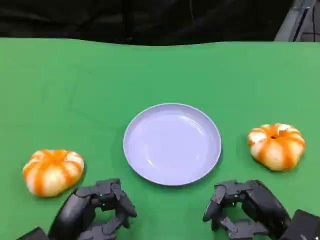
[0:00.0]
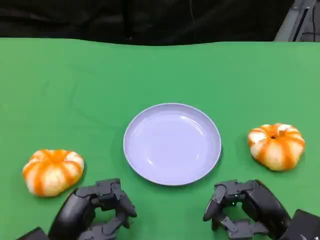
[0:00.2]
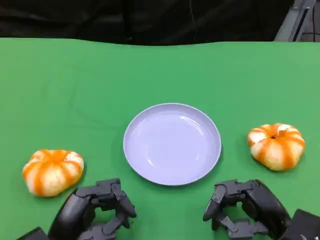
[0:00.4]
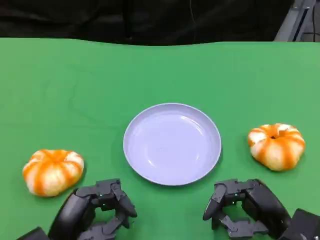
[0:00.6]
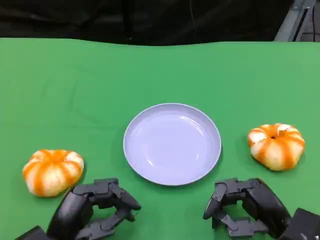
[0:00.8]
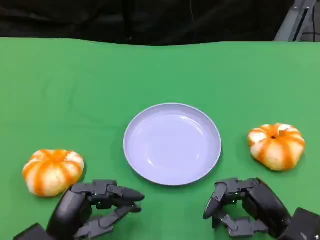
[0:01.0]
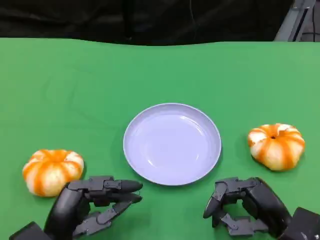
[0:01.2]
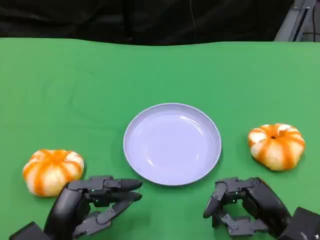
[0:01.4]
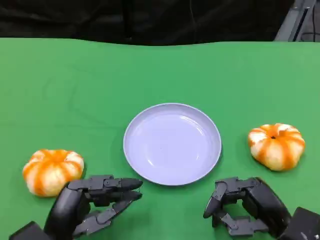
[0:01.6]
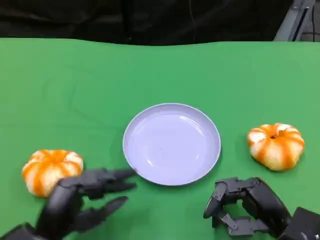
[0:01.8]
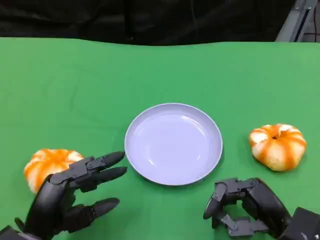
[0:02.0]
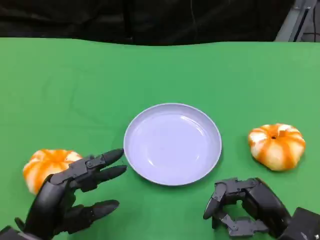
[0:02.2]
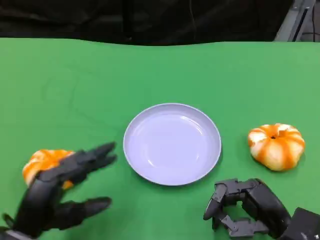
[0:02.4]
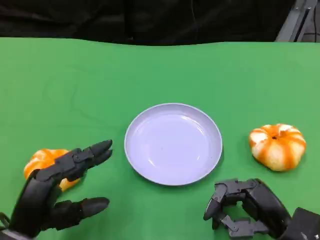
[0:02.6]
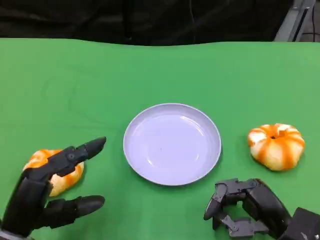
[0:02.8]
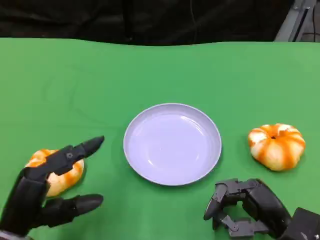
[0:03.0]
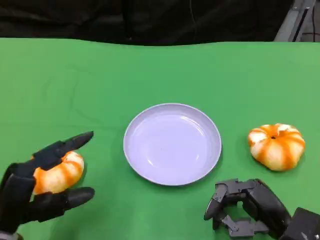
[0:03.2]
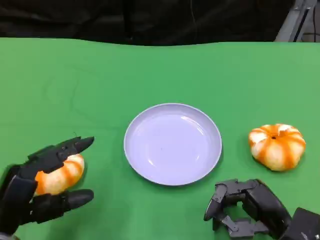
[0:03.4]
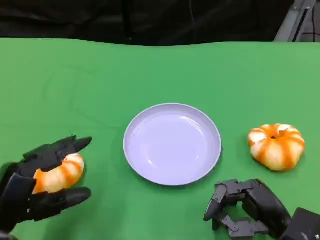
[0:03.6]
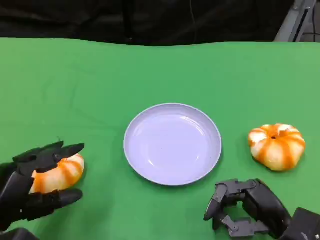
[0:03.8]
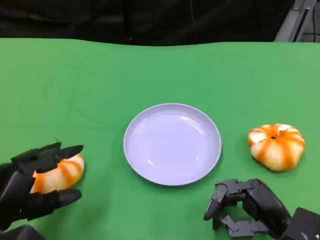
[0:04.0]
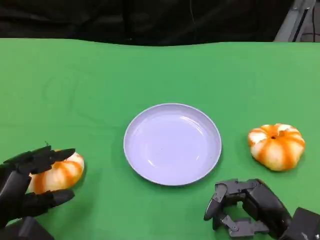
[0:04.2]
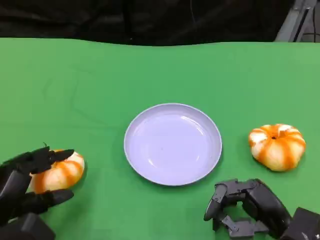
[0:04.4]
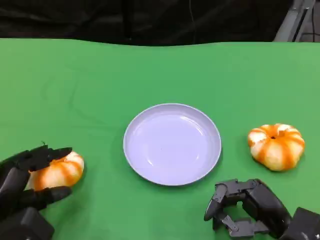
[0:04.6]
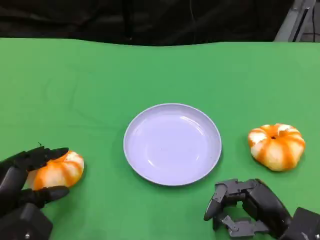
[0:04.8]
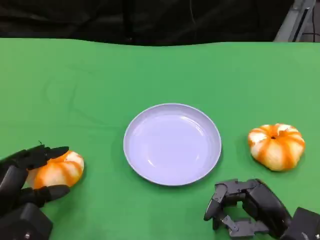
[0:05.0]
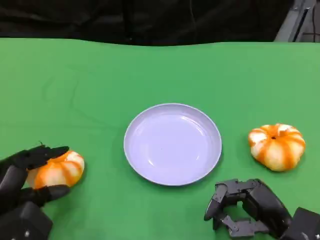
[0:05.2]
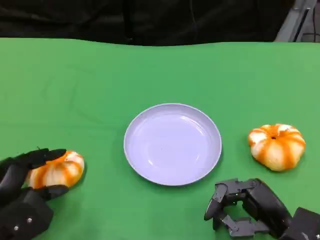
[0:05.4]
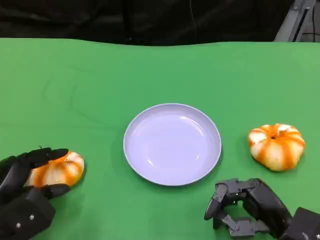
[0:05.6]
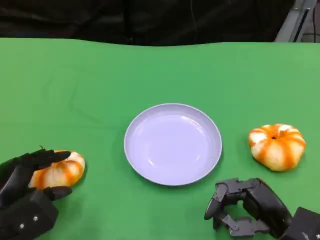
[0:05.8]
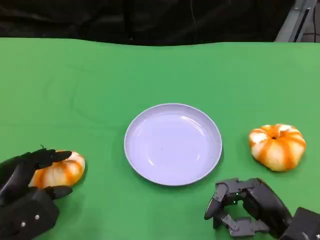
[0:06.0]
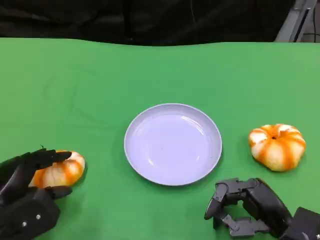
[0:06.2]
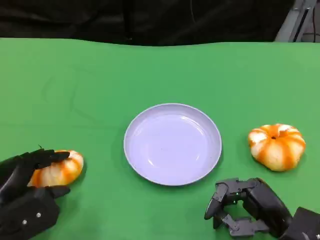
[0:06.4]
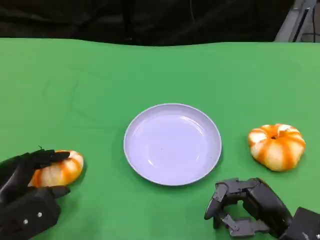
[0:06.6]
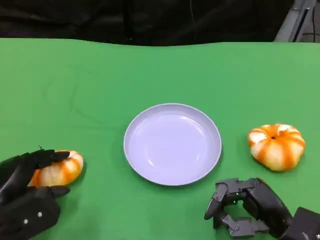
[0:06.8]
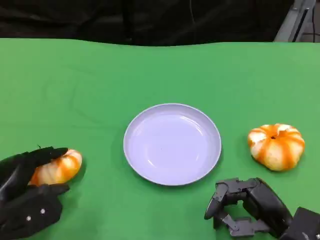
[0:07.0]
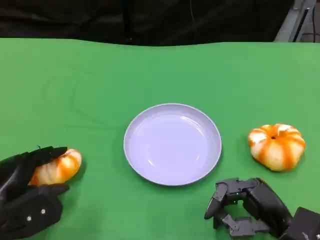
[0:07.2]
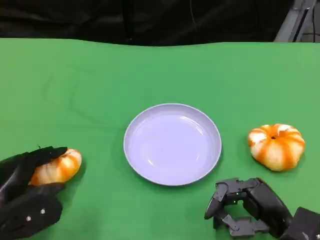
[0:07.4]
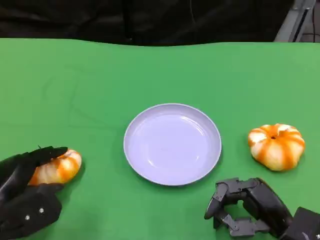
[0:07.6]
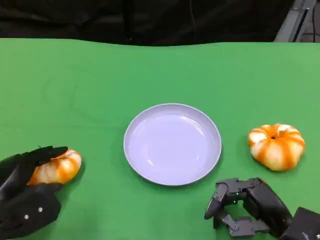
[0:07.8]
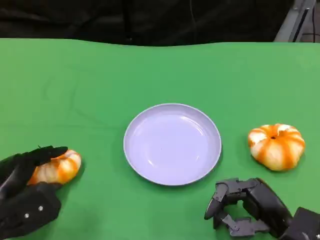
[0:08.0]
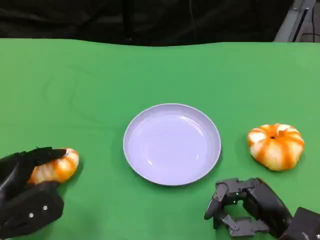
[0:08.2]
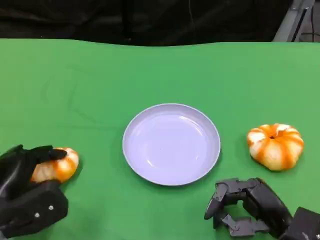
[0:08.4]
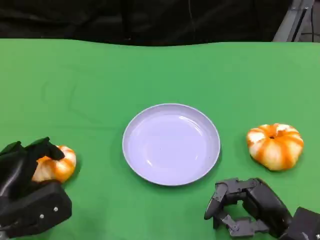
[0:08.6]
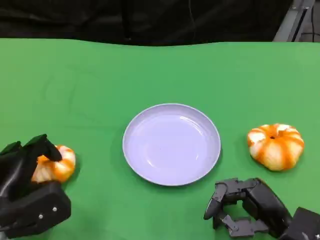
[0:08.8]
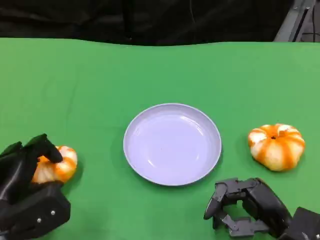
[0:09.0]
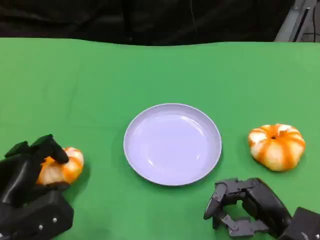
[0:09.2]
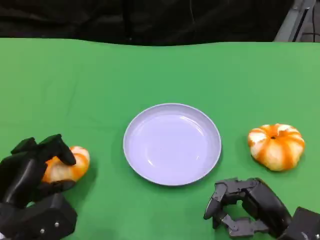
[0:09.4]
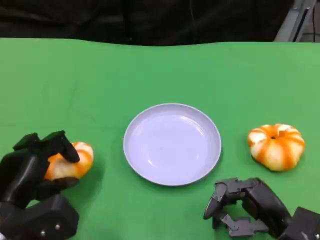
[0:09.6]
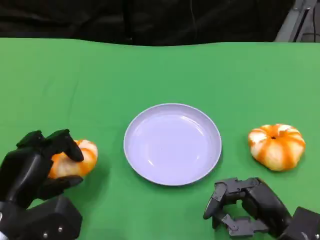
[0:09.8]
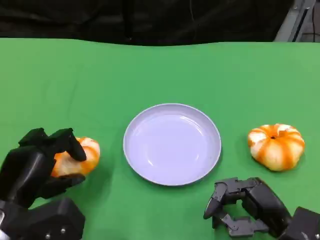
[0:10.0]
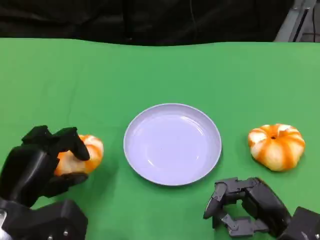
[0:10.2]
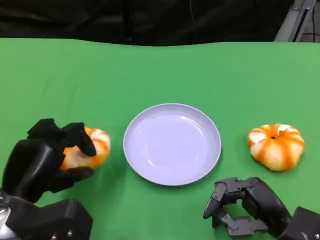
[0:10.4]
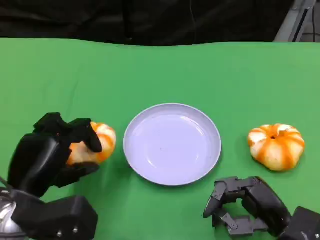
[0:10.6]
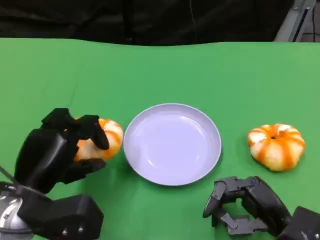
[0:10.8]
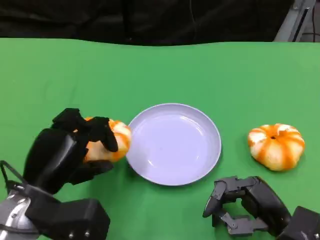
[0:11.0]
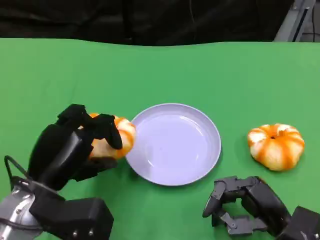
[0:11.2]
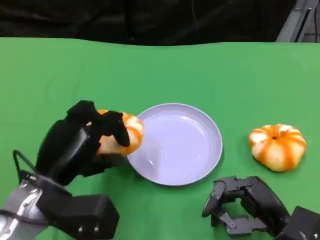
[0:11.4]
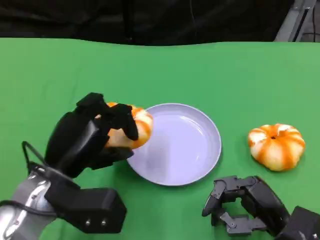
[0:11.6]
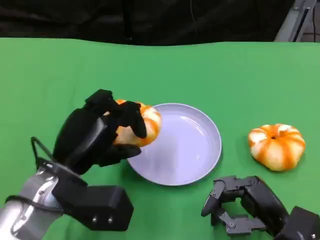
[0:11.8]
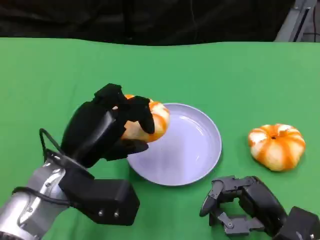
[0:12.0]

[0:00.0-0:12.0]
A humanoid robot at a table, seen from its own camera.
Task of the whole recording: Grasp the bread from the table and place it into the plate.
0:00.0 to 0:01.6: The hands make only small movements.
0:01.6 to 0:03.0: The left hand shifts by about 5 cm.
0:04.4 to 0:06.0: The hands stay close to where they were, moving slightly.
0:06.0 to 0:07.6: Neither hand changes place.
0:07.6 to 0:09.0: There are only small adjustments of the hands.
0:09.0 to 0:10.4: The left hand changes place by some 5 cm.
0:10.4 to 0:12.0: The left hand moves to the right, about 5 cm.

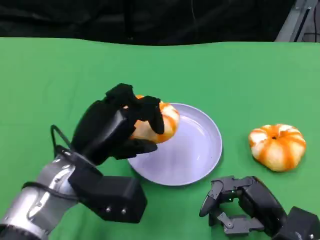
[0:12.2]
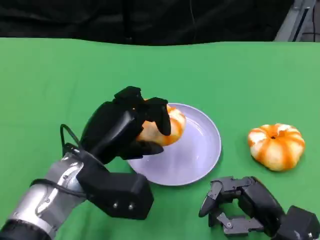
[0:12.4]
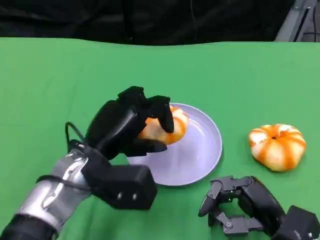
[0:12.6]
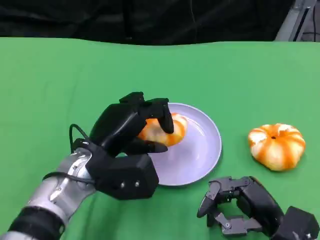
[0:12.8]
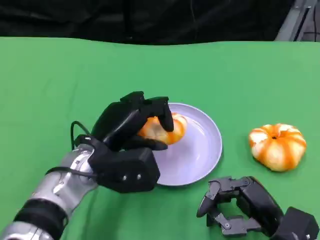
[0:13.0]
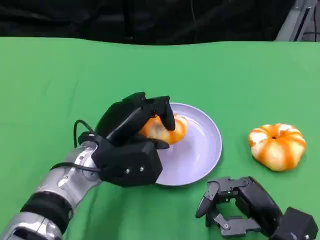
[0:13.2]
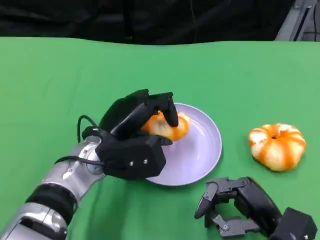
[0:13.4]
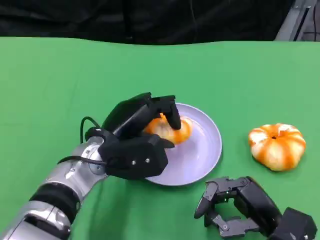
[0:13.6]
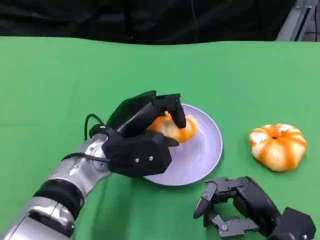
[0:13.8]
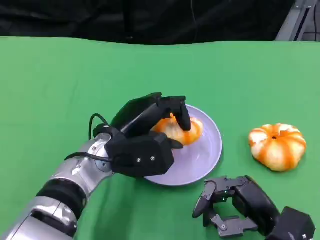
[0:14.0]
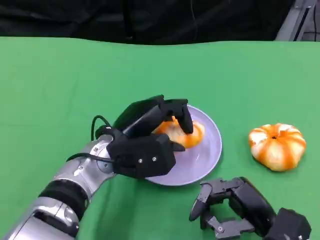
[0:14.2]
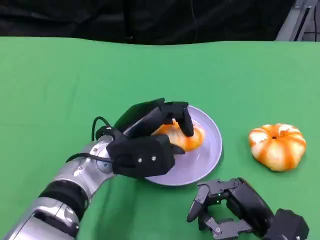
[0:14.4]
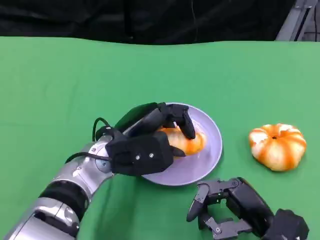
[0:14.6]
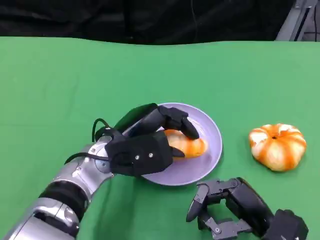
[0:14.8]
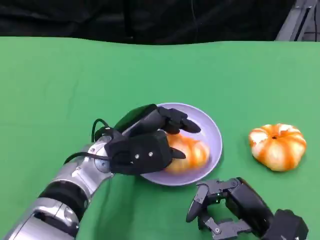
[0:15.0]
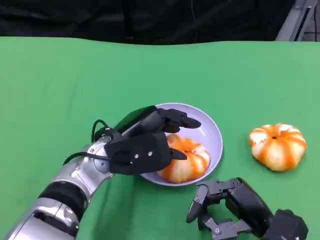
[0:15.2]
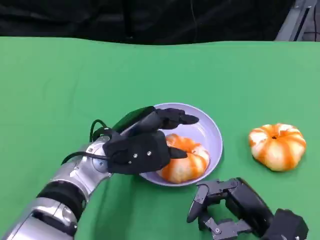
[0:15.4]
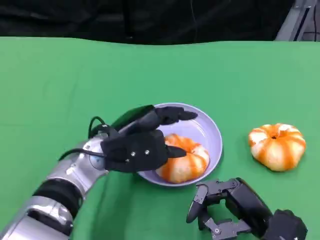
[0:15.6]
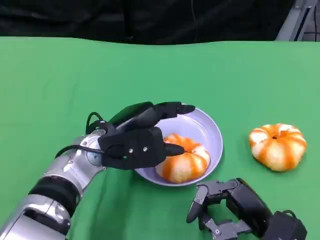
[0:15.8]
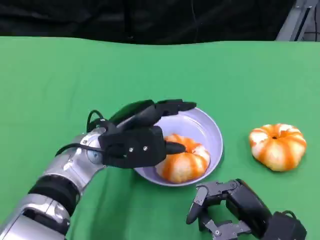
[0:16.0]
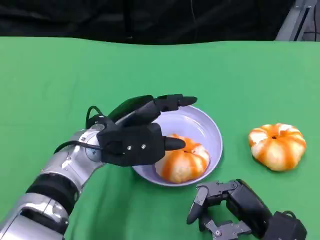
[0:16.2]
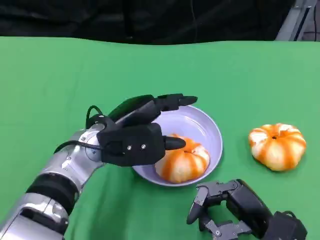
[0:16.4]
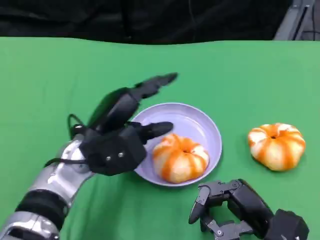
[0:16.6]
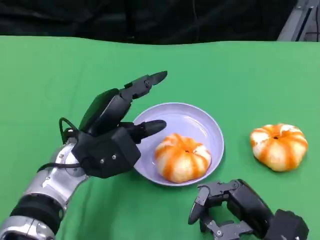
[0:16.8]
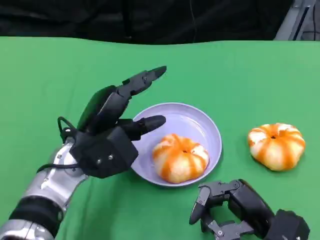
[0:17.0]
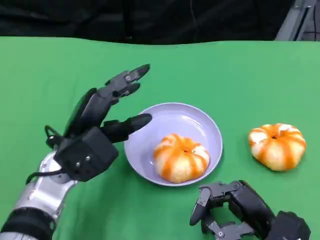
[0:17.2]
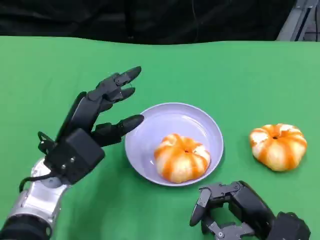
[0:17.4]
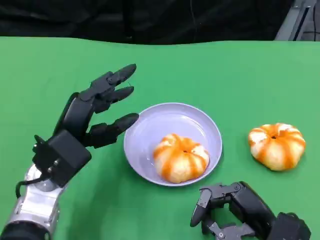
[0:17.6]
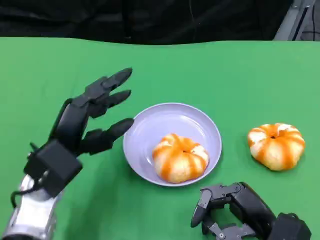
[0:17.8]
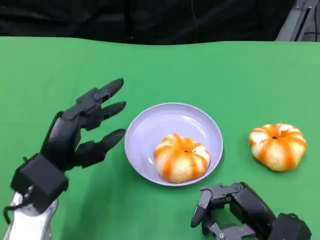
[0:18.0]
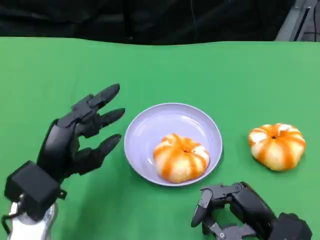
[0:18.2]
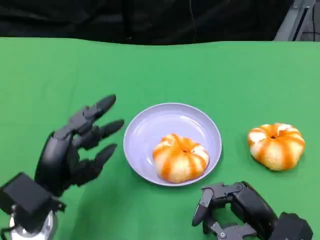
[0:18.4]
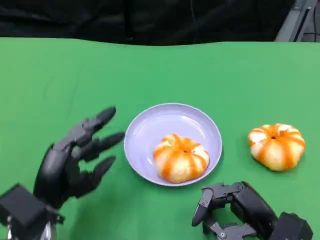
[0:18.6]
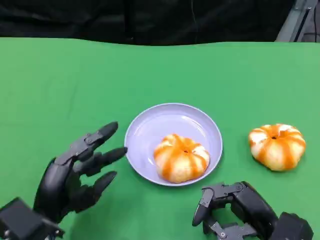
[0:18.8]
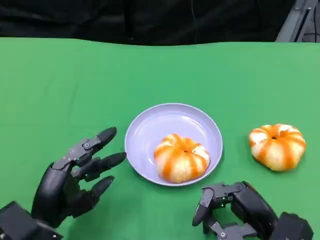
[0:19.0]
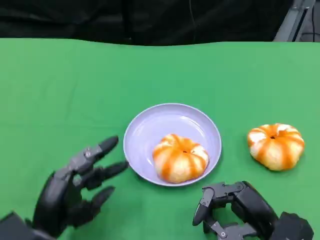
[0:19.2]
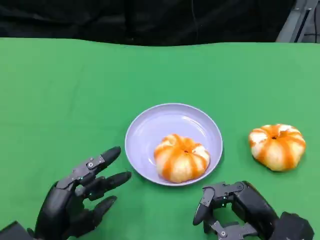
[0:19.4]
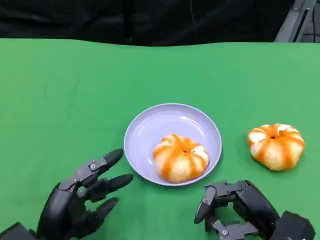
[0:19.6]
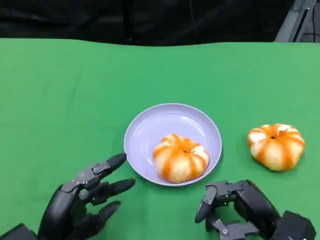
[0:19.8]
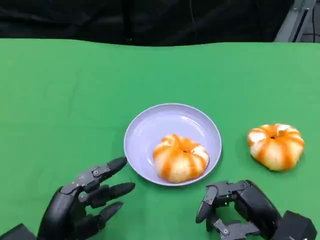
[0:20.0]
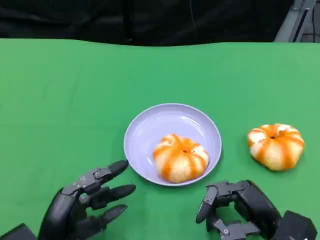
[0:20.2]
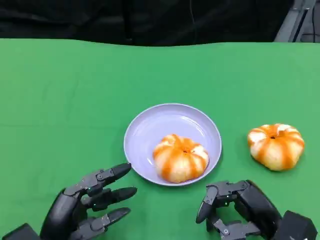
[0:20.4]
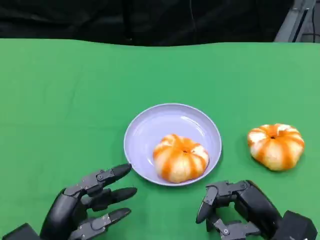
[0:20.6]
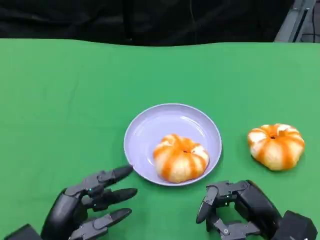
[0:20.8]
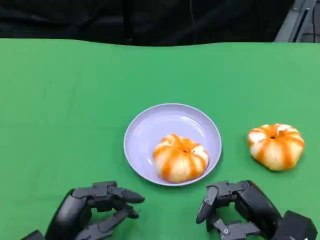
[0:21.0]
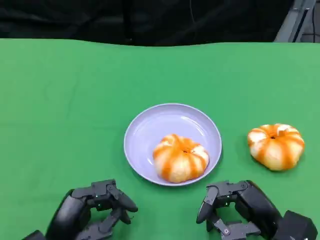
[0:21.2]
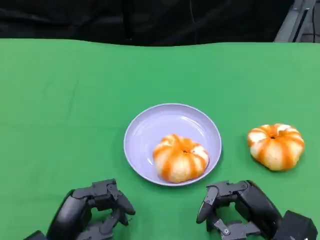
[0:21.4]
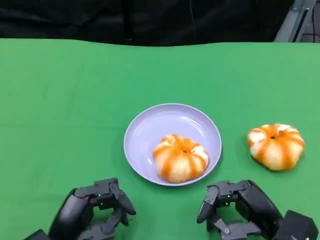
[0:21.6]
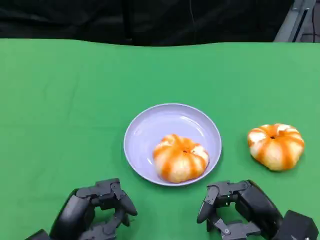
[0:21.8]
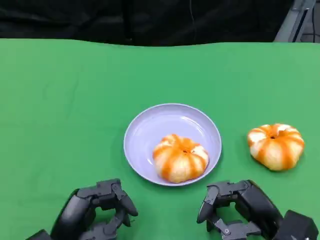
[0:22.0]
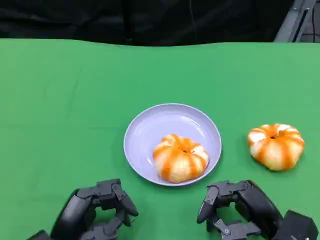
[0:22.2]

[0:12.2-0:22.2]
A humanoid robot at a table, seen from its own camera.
Task of the whole recording: Grasp the bread from the table and place it into the plate.
0:12.2 to 0:13.6: The left hand ends up roughly 5 cm from where it was.
0:13.6 to 0:16.4: The hands move only a little.
0:16.4 to 0:18.0: The left hand moves to the left and backward, roughly 10 cm.
0:18.0 to 0:19.4: The left hand goes roughly 10 cm backward and downward.
0:19.4 to 0:20.8: There are only small adjustments of the hands.
0:20.8 to 0:22.2: Both hands stay put.
